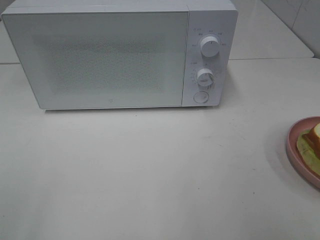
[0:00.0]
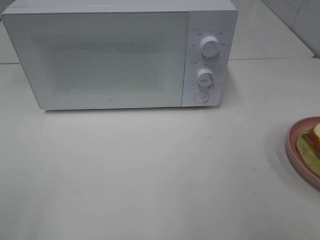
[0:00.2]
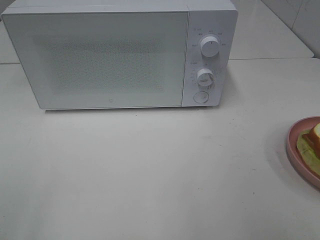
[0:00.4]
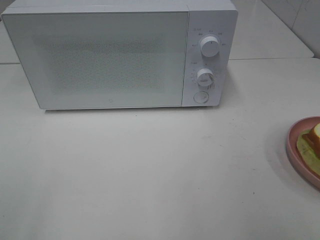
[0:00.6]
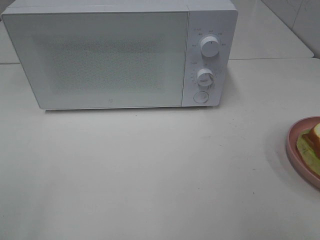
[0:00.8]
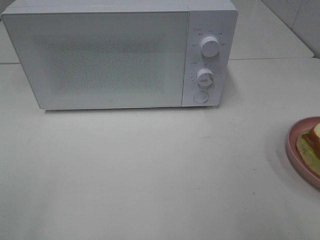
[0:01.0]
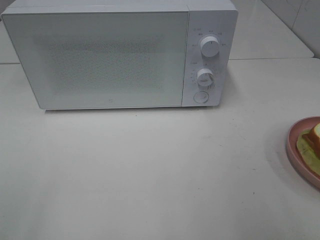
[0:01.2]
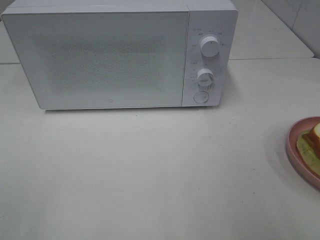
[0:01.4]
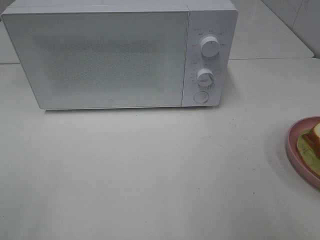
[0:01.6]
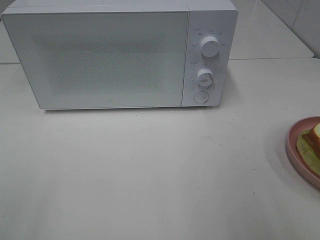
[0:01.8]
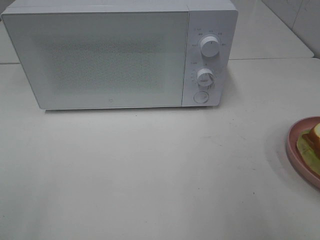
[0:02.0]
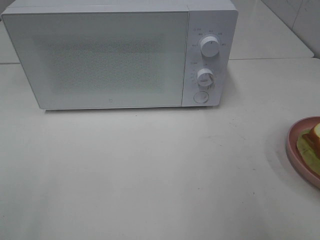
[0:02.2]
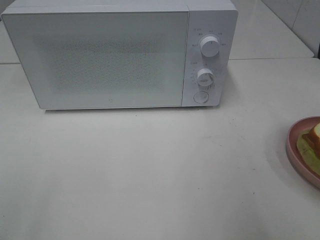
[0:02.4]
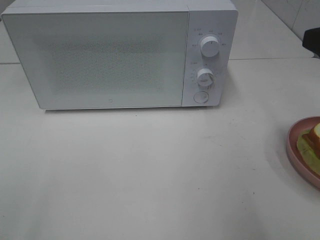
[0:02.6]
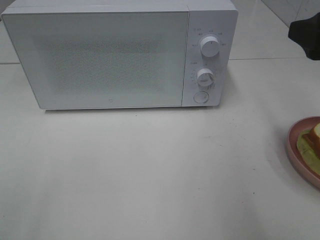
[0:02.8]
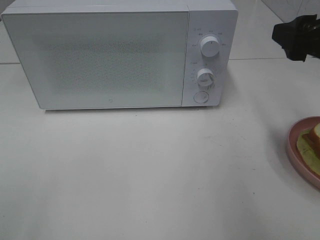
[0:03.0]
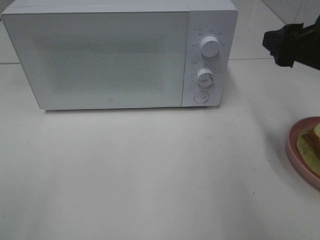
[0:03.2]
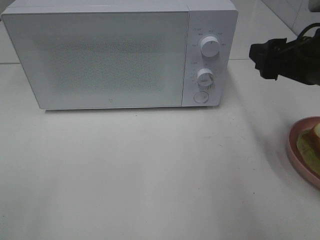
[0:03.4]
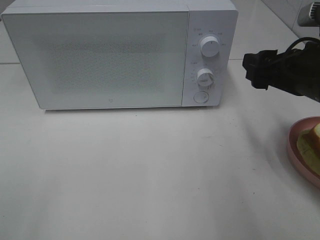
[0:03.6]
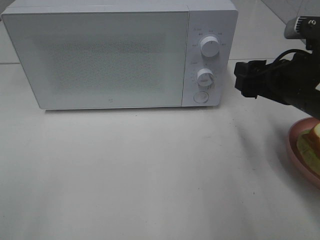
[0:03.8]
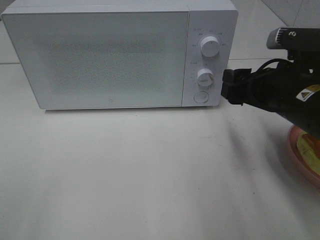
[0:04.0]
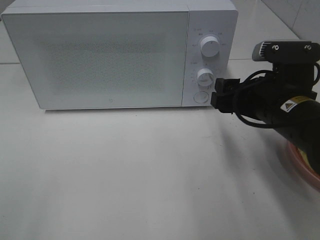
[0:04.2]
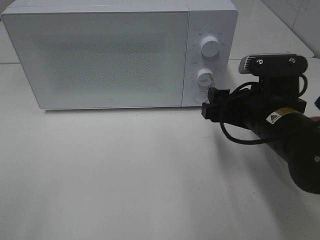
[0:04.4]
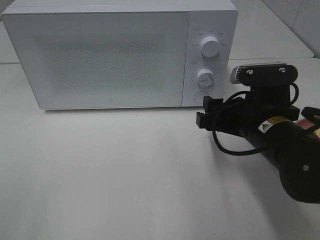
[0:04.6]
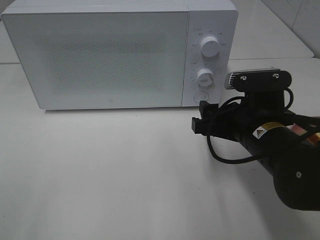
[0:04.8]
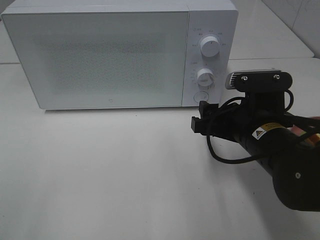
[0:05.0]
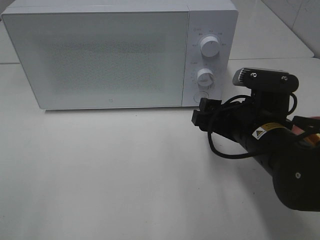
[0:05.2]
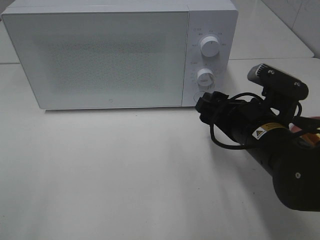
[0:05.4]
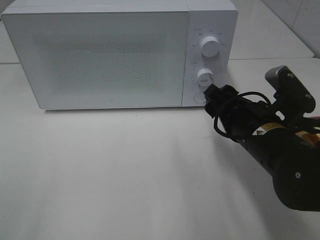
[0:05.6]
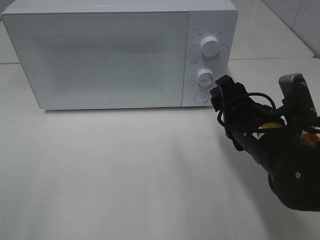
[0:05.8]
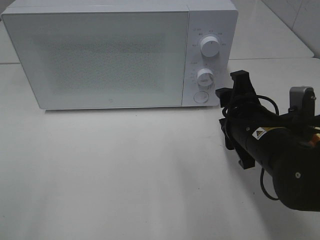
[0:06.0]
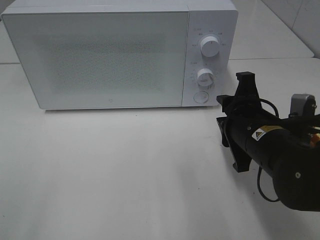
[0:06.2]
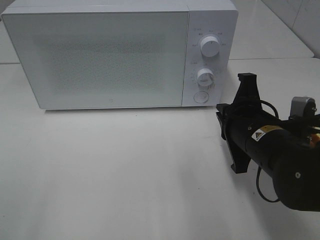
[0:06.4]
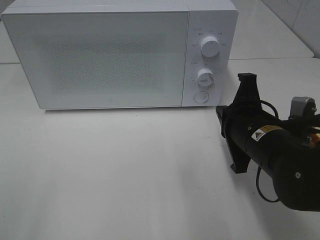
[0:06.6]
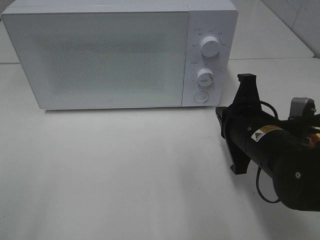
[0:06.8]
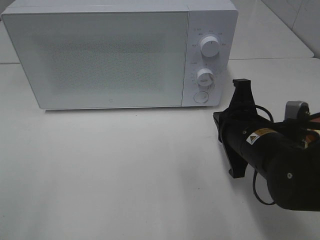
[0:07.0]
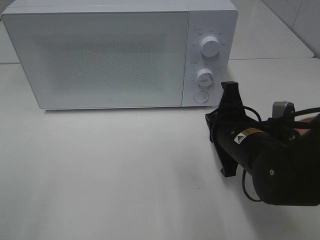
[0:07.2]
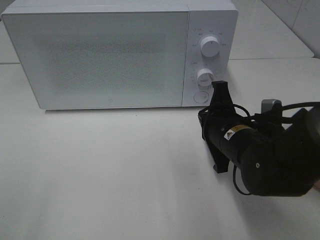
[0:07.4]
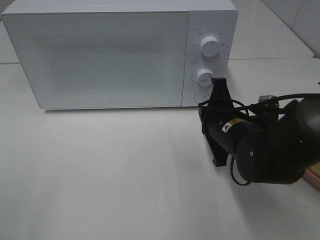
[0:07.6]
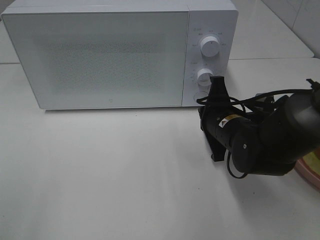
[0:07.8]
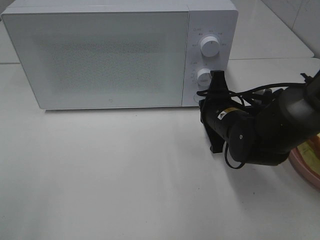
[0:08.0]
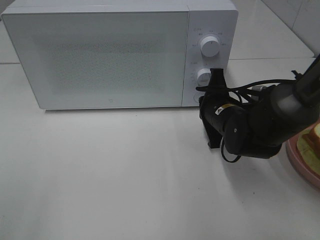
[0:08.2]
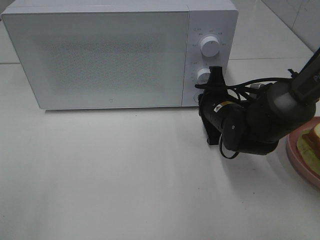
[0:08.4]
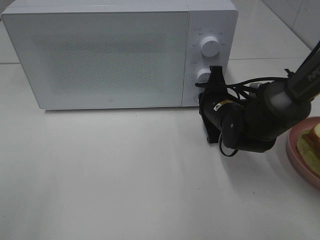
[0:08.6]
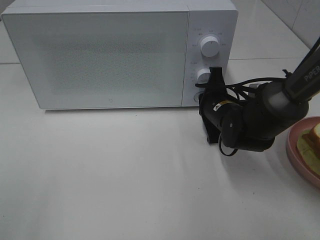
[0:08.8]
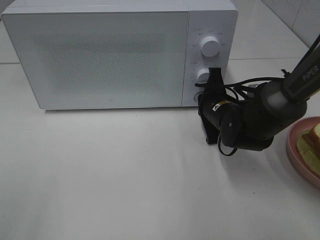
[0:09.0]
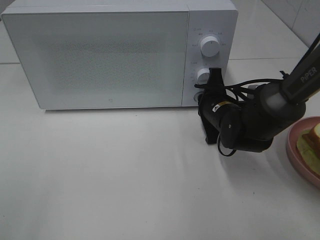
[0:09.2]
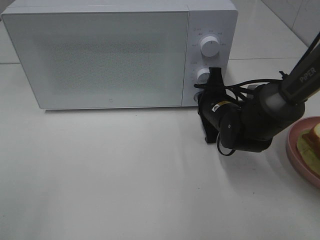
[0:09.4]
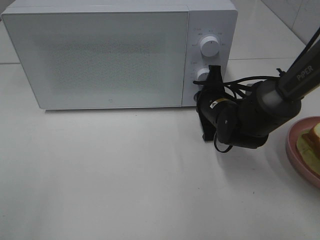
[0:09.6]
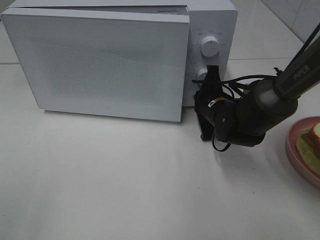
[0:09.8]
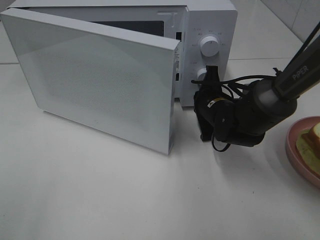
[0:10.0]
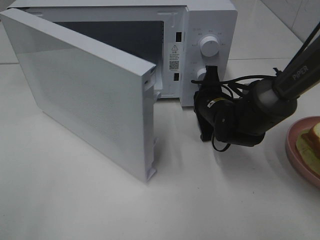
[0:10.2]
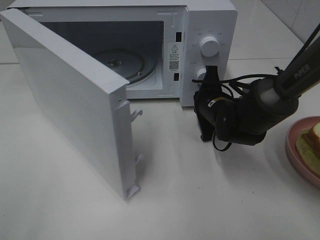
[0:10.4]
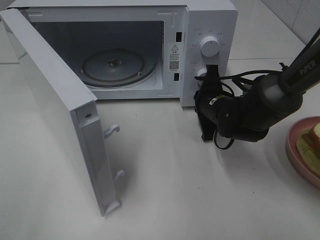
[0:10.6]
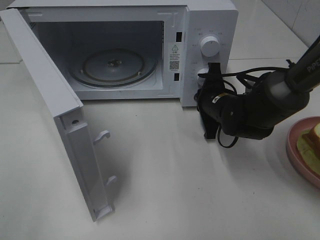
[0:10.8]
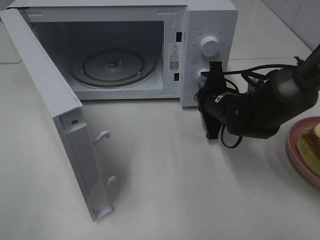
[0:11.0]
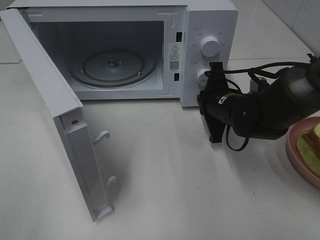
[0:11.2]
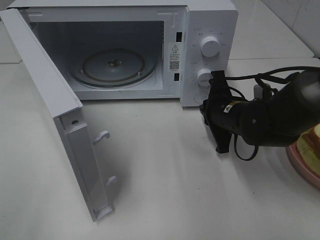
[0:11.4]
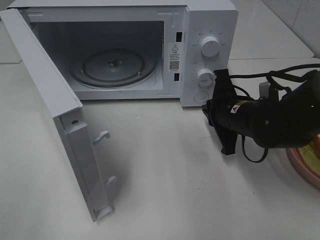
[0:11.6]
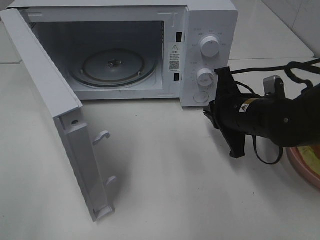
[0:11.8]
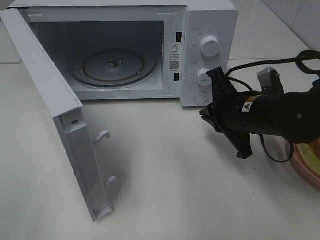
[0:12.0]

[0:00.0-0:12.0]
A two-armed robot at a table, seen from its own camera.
Task of the whole recording: Heat Sandwich.
Step, 0:00.0 to 0:11.2: Right hand: press the switch.
0:01.6 to 0:03.0: The right gripper travels forward by roughly 15 cm.
0:03.0 to 0:04.4: The right gripper heads downward and to the left, covering approximately 15 cm.
0:06.0 to 0:07.6: The right gripper shifts by about 5 cm, and closes.
0:07.6 to 0:09.0: The right gripper is displaced forward by about 10 cm.
0:10.4 to 0:12.0: The right gripper travels backward and upward by approximately 10 cm.

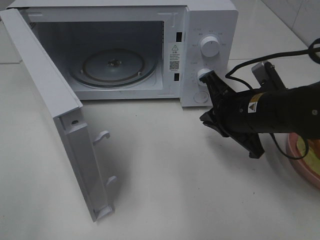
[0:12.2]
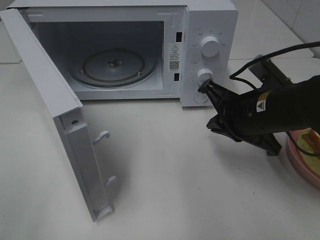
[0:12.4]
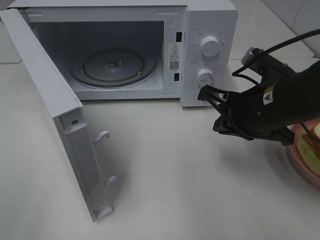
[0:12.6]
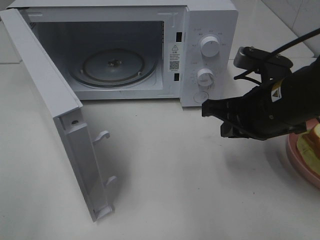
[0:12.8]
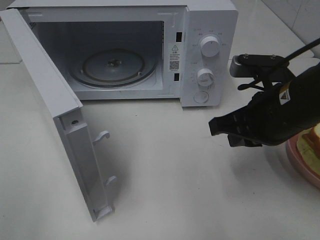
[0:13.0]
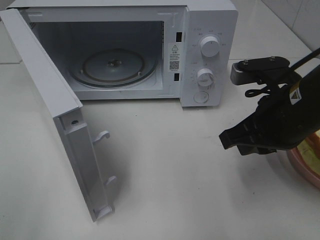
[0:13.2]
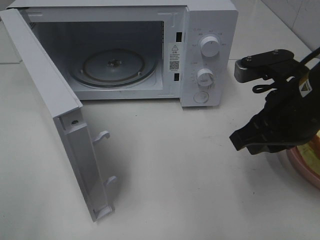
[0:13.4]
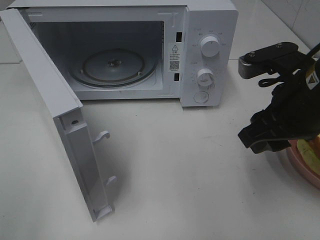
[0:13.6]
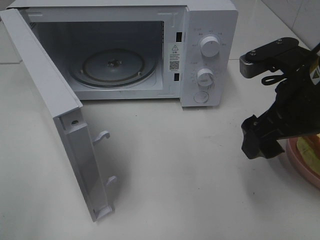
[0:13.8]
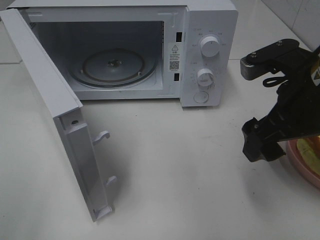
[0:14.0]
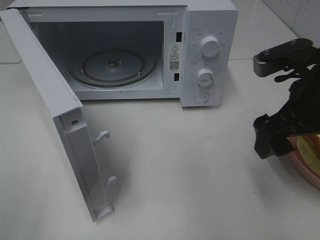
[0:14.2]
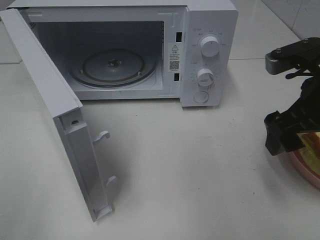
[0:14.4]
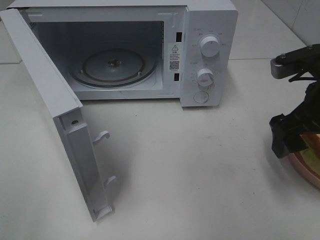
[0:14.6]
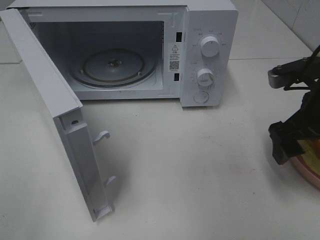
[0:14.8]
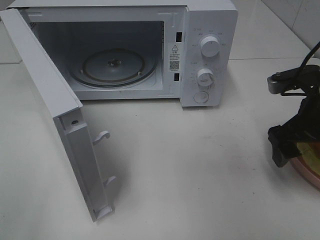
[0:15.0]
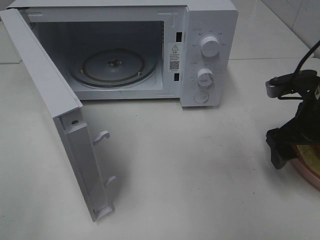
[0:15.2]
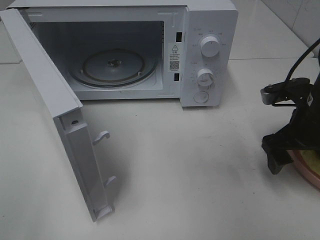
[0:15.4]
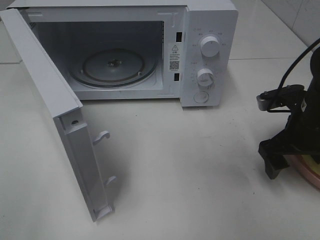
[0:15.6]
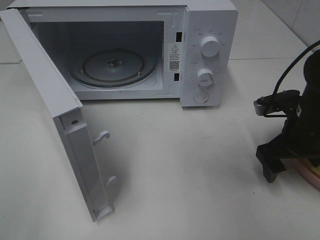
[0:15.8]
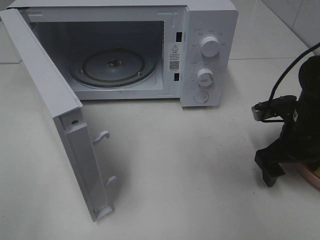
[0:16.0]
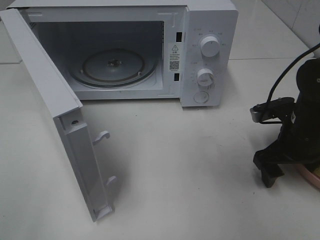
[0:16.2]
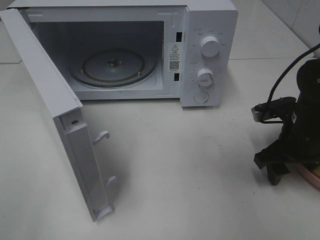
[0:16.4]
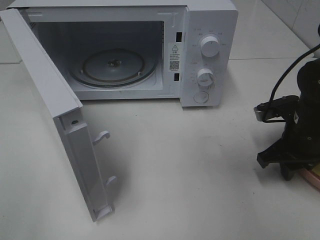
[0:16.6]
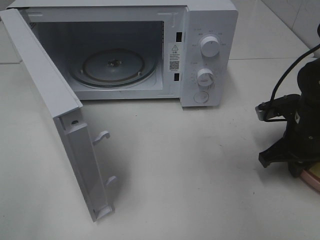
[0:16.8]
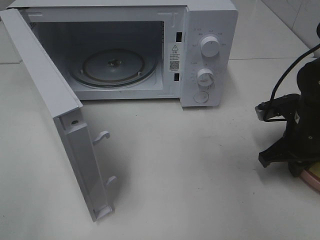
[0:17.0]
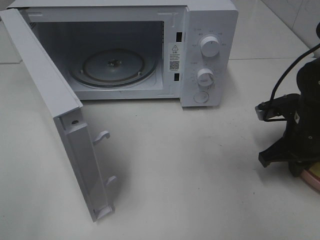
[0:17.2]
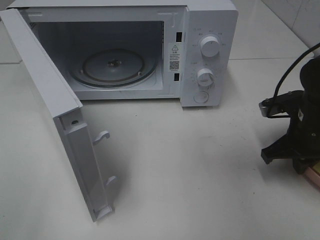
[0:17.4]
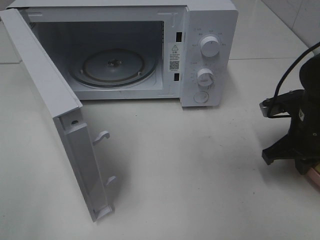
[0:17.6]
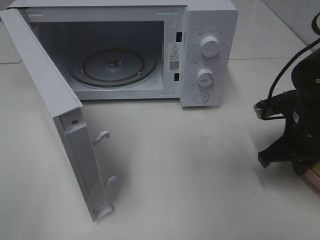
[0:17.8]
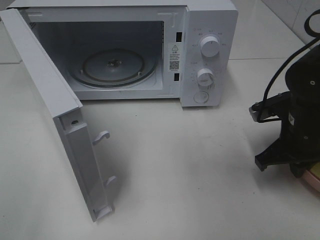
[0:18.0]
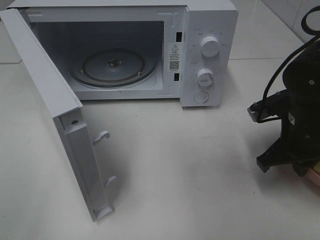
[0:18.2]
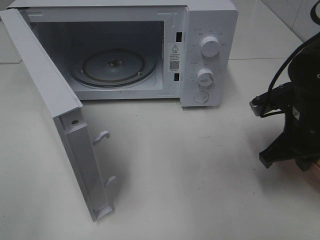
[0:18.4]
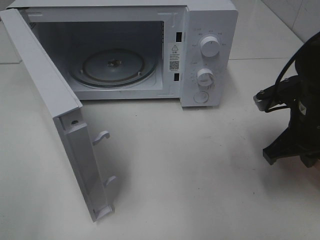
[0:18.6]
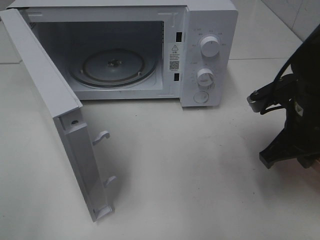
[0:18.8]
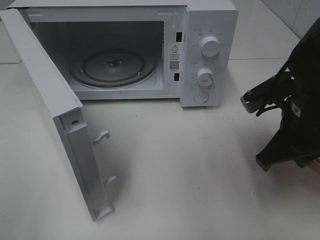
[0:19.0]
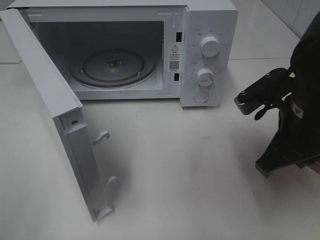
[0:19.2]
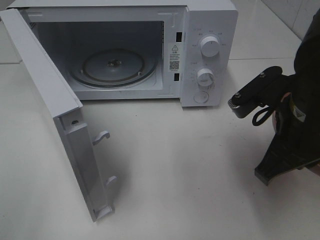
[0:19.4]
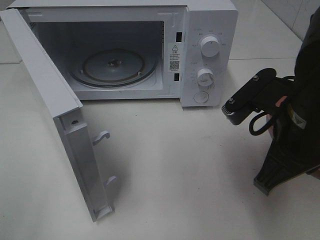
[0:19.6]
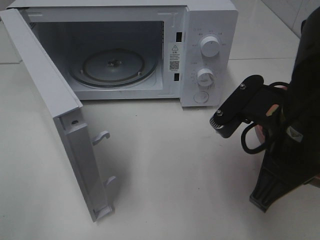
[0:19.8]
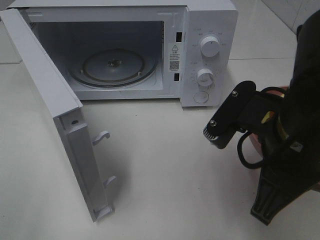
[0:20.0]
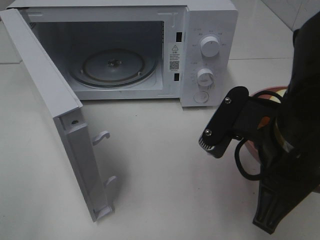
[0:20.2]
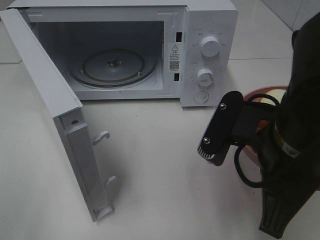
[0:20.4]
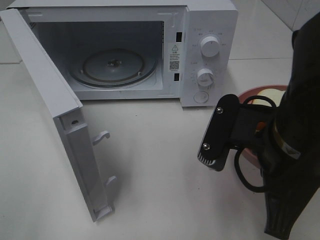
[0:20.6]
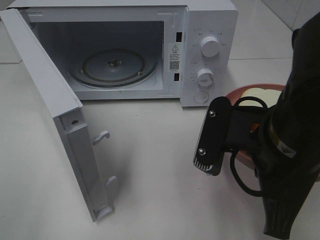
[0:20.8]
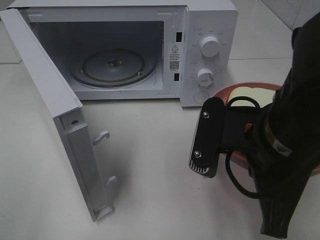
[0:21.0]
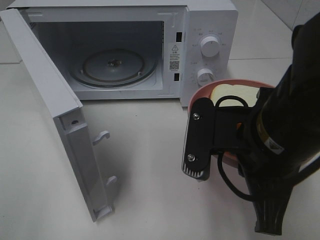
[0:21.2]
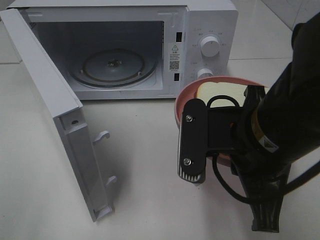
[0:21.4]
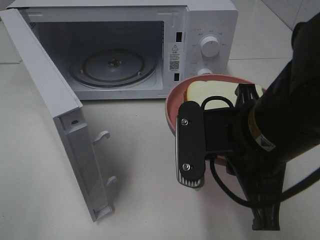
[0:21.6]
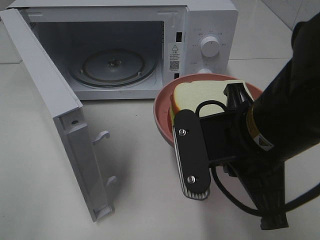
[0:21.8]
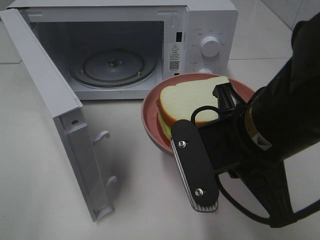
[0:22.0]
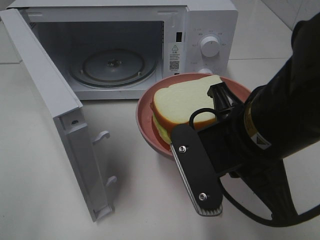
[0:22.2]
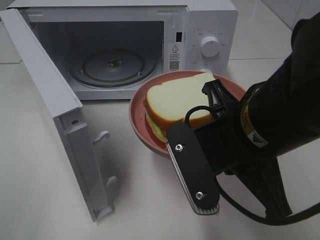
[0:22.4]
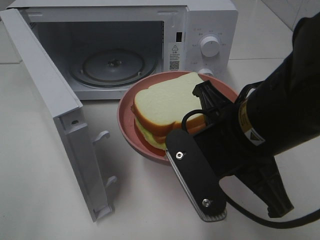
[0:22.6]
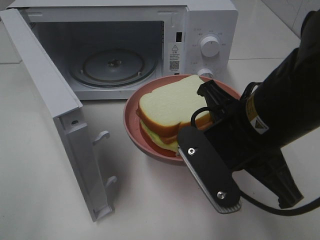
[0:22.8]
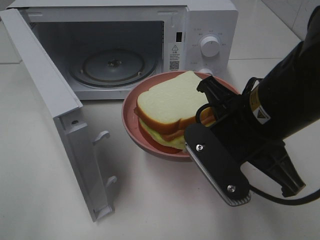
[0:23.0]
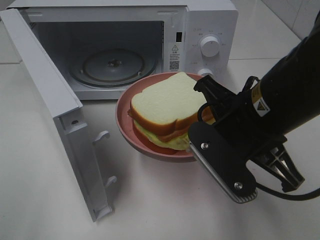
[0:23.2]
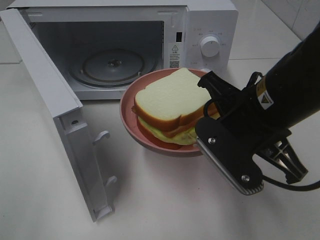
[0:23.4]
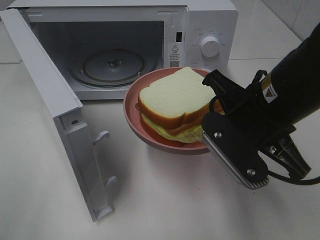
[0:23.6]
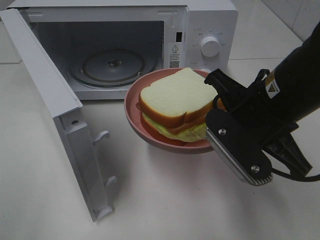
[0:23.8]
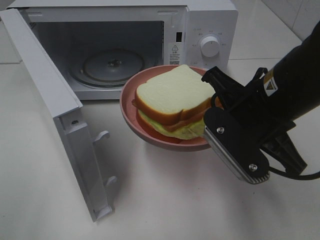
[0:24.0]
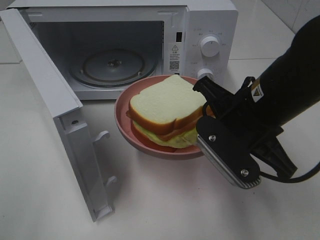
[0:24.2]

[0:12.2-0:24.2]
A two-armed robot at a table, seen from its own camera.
Task of the whole recording: Heat Sandwich.
Step, 0:12.2 to 0:17.2: Right hand: grab the plate with the sandwich.
0:12.2 to 0:13.8: The right gripper is displaced upward by approximately 10 cm, and opens its fingers.
0:13.8 to 0:15.2: The right gripper moves downward and to the right, some 10 cm.
0:15.2 to 0:16.6: The right gripper shifts some 5 cm downward, and closes.
0:16.6 to 0:18.2: There are only small adjustments of the grippers.
0:18.2 to 0:19.8: The right gripper heads backward, to the left and upward, covering about 15 cm.
0:22.6 to 0:24.2: The right gripper is displaced forward by approximately 5 cm.
